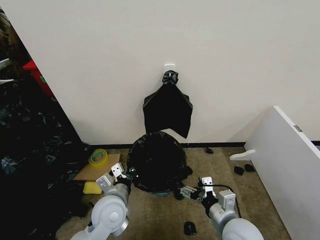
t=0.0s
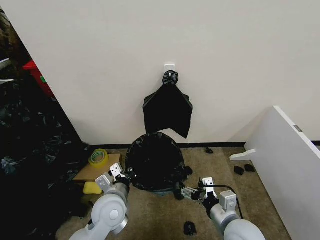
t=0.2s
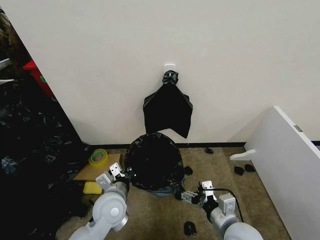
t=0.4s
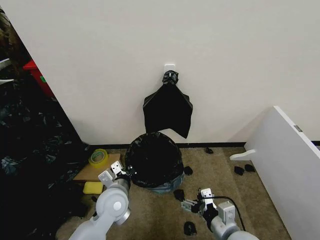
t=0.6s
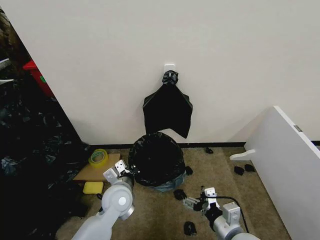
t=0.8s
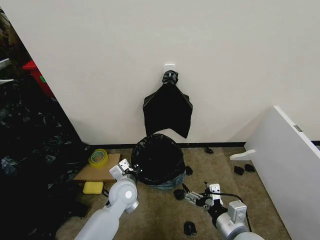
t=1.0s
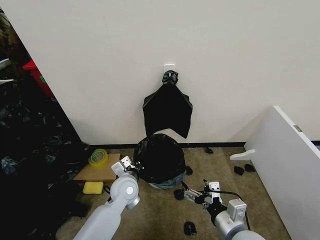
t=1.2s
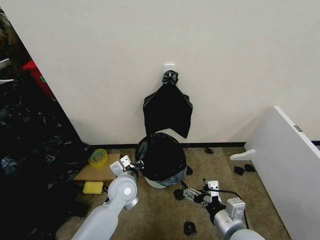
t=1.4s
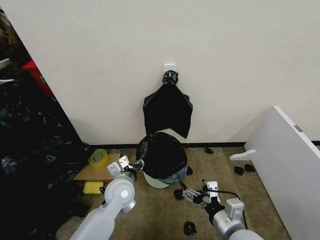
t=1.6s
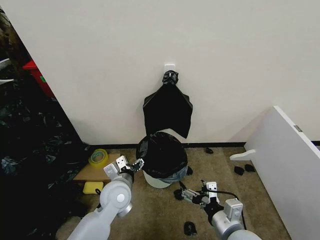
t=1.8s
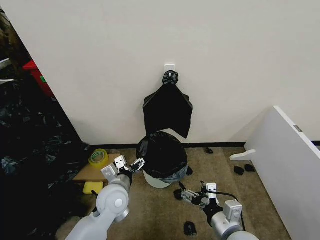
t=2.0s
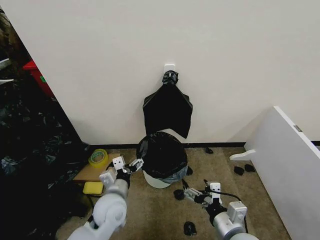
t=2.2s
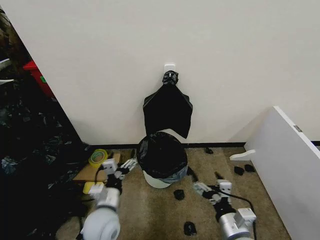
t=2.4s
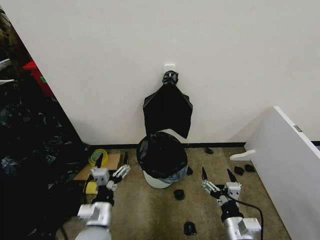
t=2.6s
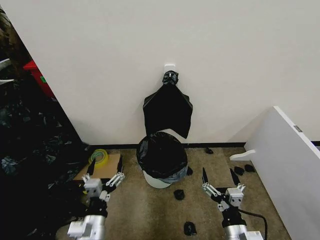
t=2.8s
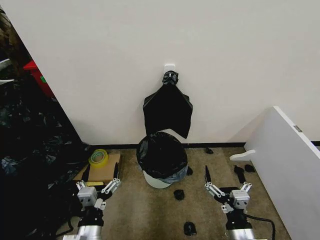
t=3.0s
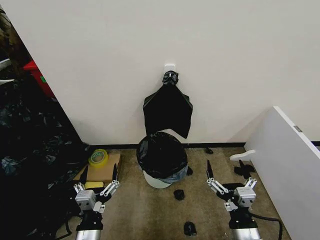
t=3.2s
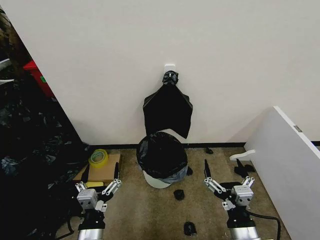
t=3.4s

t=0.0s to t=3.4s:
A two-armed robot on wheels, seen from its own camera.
Task of the whole recording: Place the garbage bag over the trash bin.
t=0.0s to t=1.6s: The left gripper shifts approximately 5 cm forward, and opens.
t=1.6s to t=3.4s: The left gripper shifts about 20 cm backward, and opens its fingers; the right gripper is displaced backward by approximately 5 cm.
